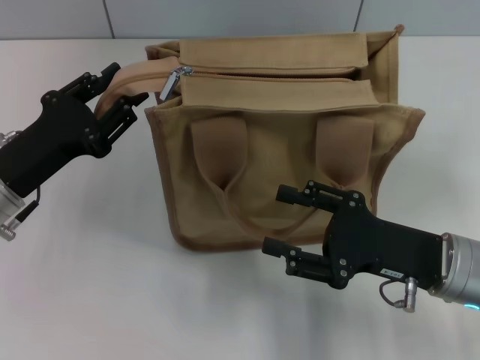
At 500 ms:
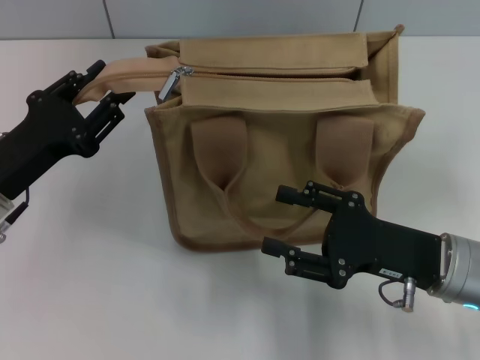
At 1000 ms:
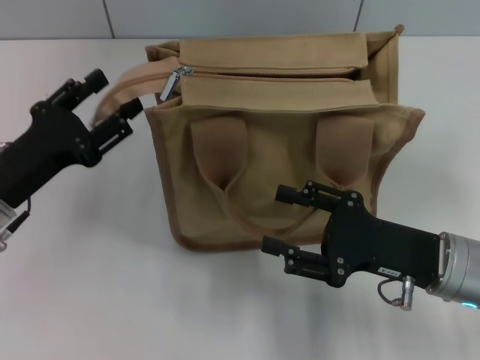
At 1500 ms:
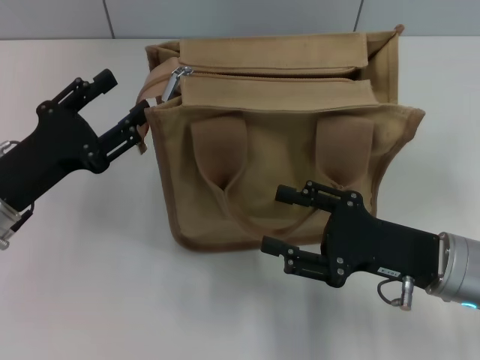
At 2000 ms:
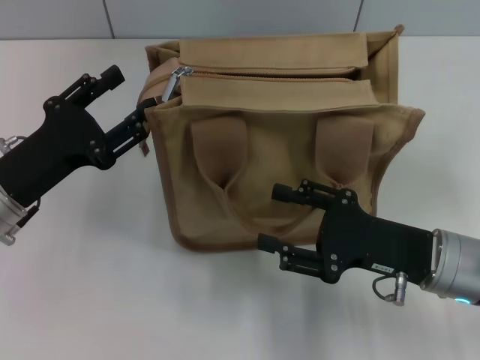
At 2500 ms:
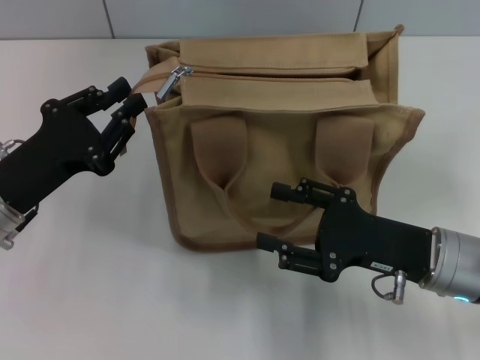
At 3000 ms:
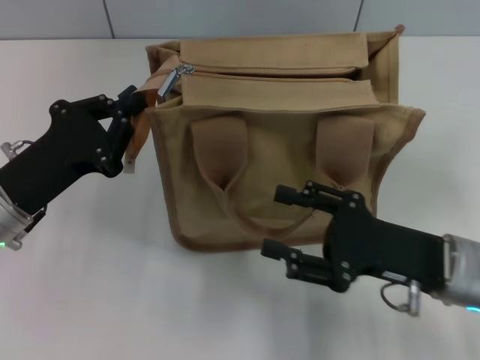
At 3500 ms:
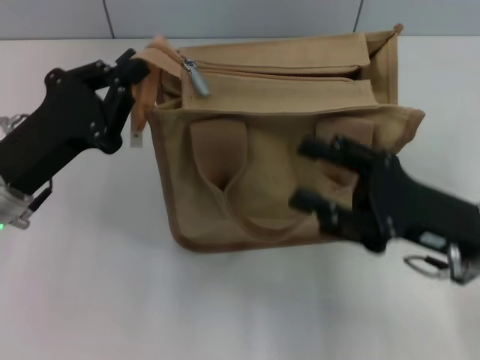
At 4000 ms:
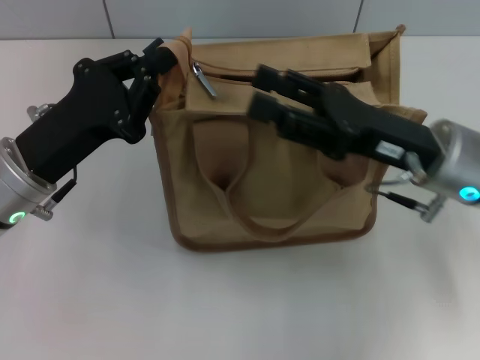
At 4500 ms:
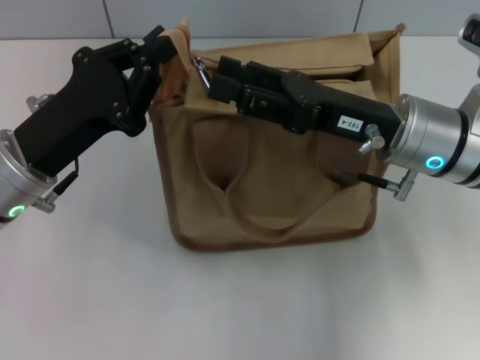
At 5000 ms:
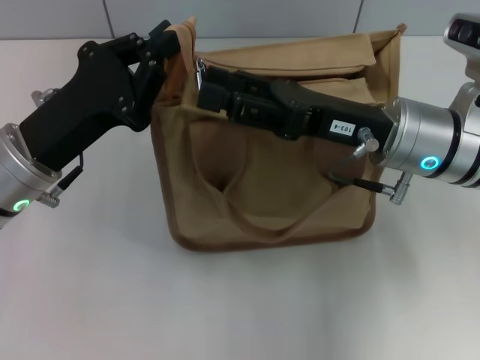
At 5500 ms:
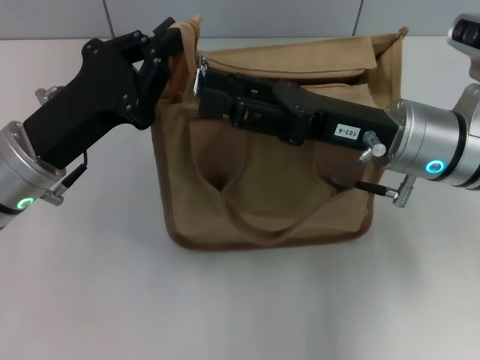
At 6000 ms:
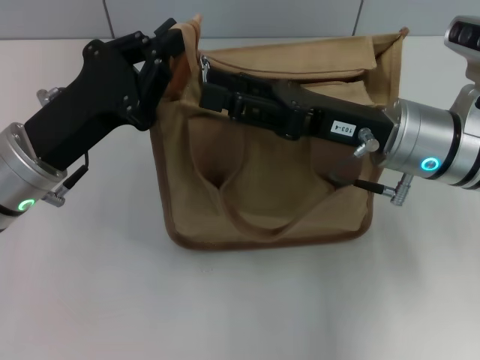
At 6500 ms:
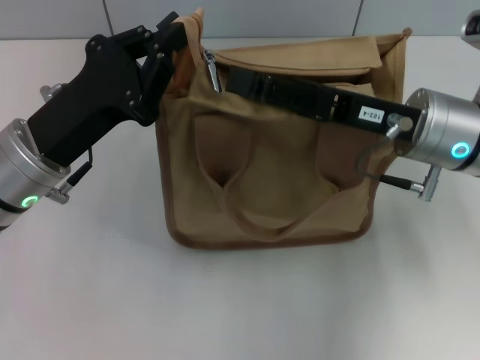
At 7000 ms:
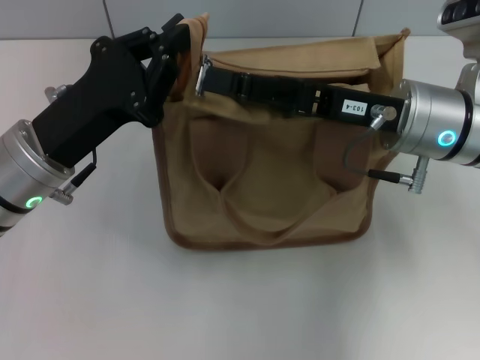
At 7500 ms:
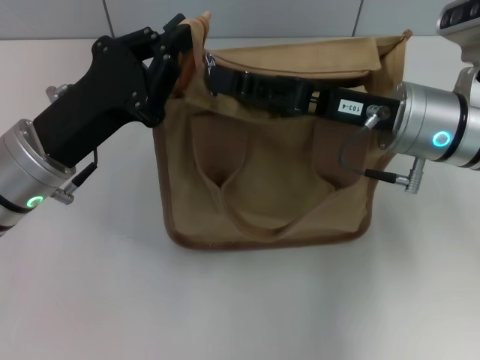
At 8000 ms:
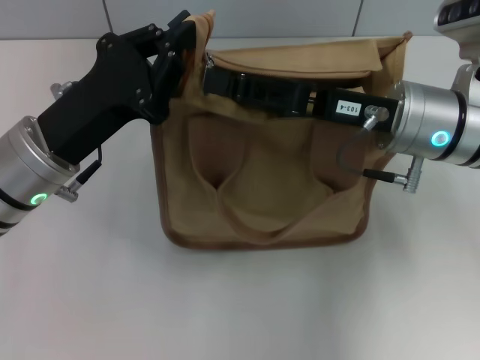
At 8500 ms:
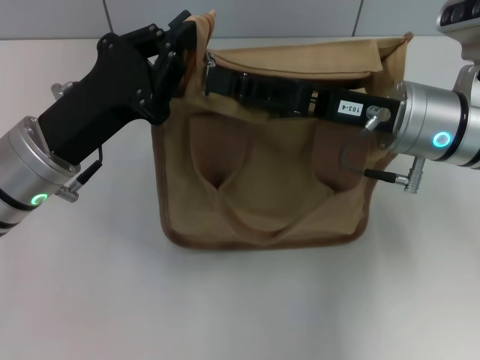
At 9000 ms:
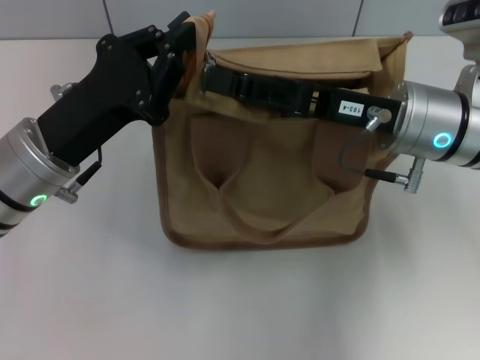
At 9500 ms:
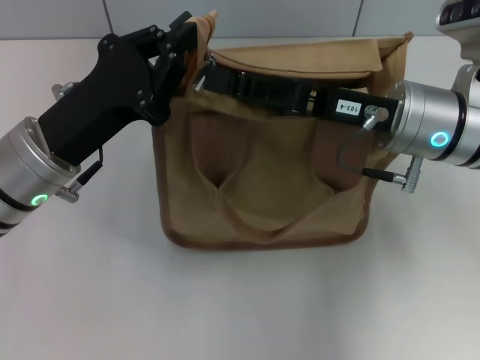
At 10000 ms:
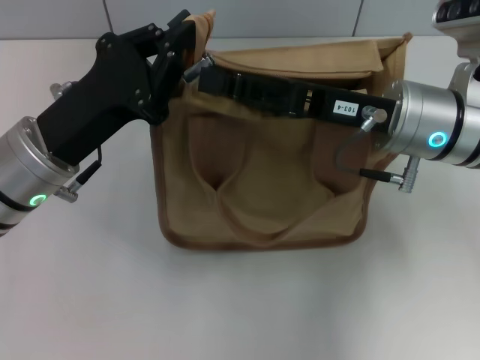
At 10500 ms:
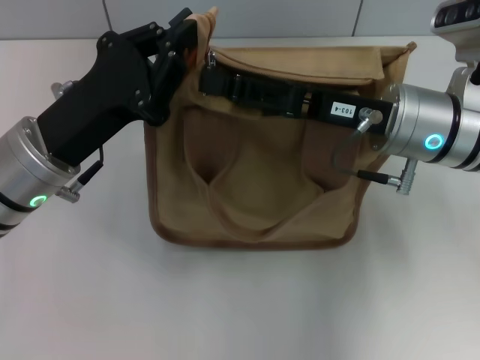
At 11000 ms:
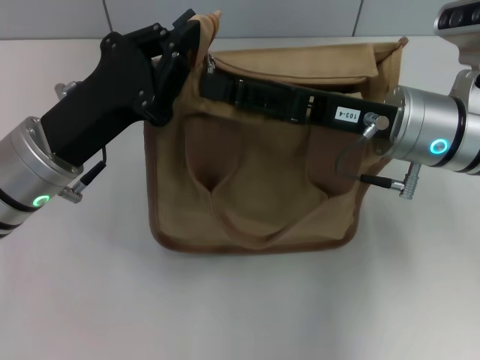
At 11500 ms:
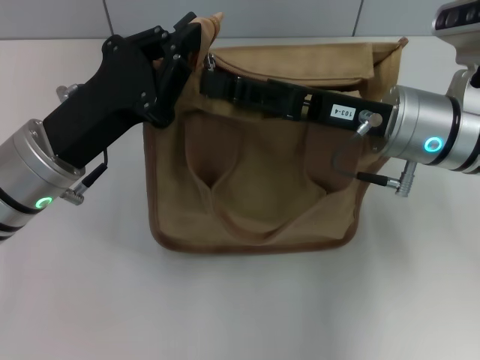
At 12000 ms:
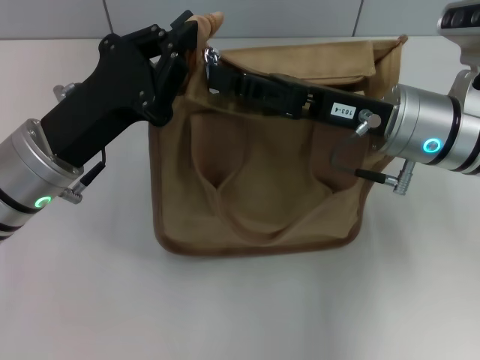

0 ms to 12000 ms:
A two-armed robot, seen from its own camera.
0 ms to 2000 ms: The left gripper opens.
2000 ms to 4000 ms: The left gripper closes its fingers; the right gripper moves upward and forward, roughly 10 cm.
4000 ms to 6000 ms: The grippers make only small movements.
6000 ms to 8000 ms: The right gripper closes its fingers.
8000 ms to 10000 ms: Both grippers stay put.
10000 ms to 12000 ms: The right gripper closes.

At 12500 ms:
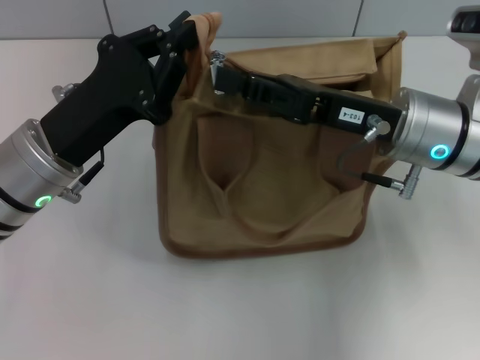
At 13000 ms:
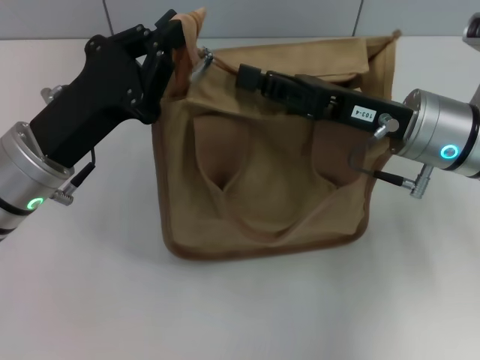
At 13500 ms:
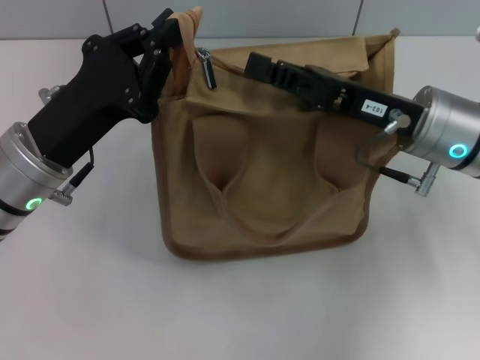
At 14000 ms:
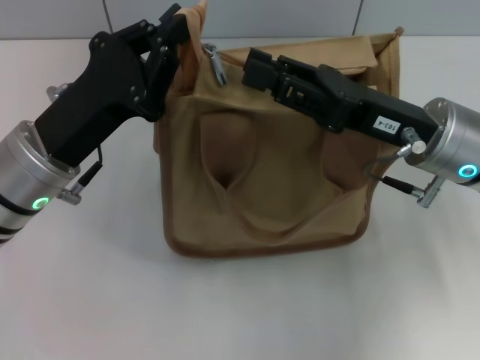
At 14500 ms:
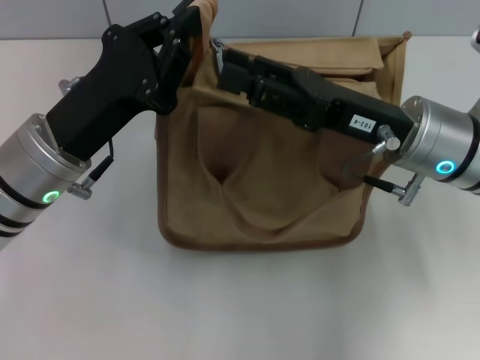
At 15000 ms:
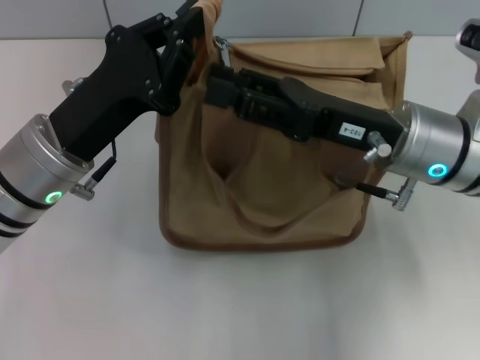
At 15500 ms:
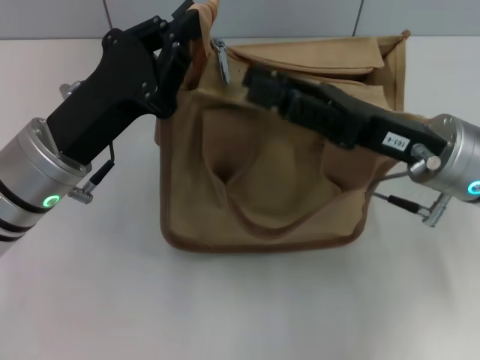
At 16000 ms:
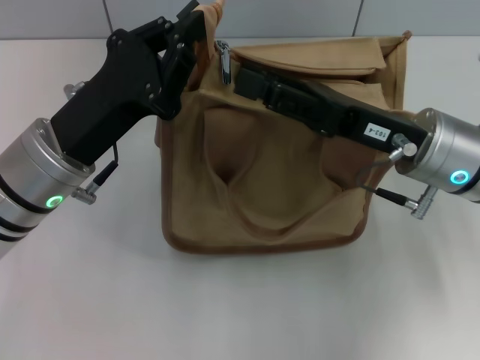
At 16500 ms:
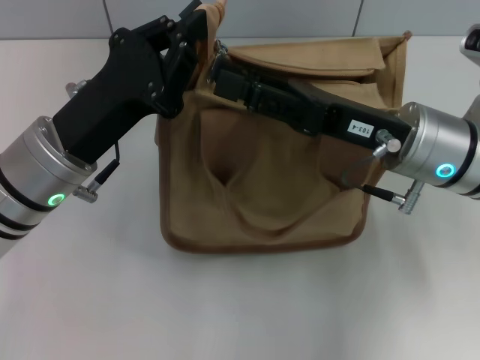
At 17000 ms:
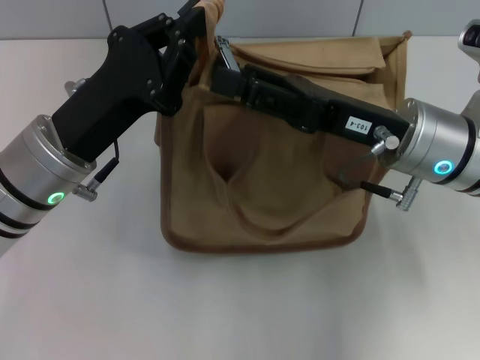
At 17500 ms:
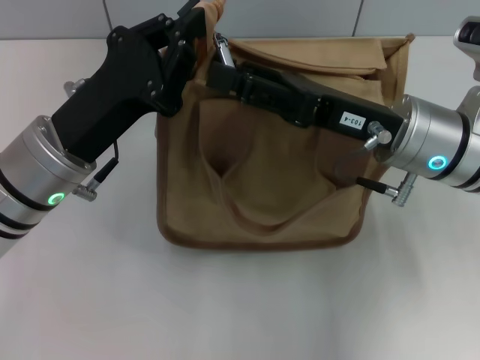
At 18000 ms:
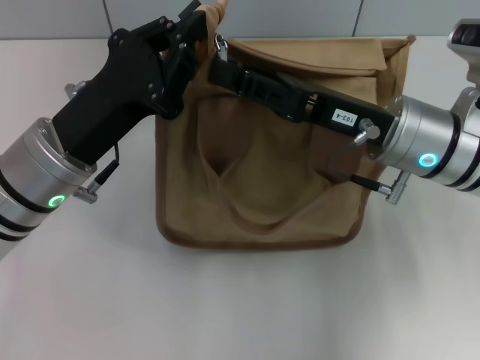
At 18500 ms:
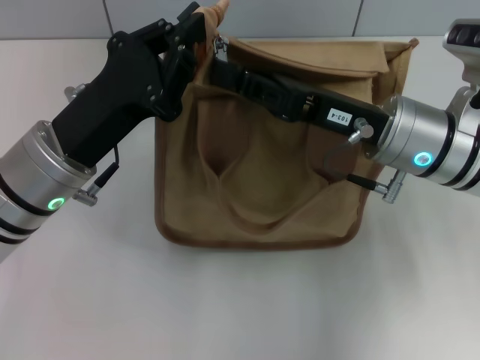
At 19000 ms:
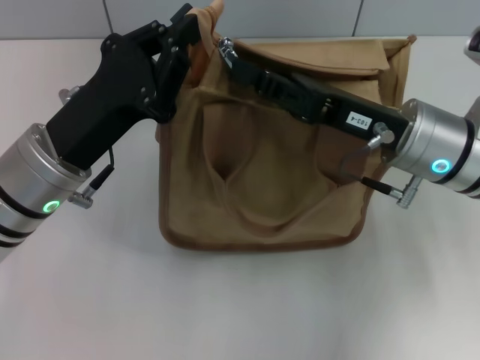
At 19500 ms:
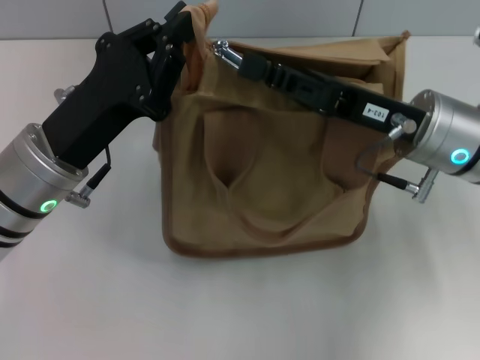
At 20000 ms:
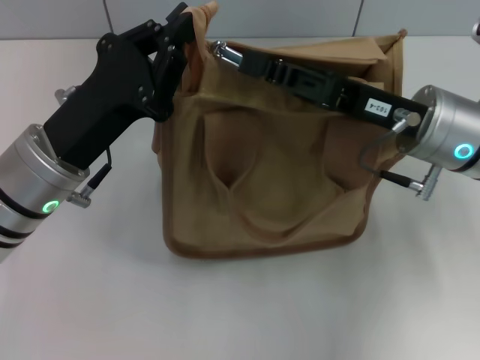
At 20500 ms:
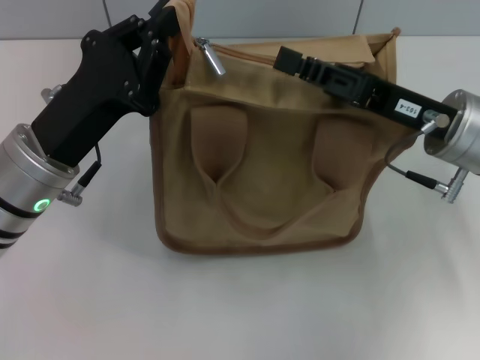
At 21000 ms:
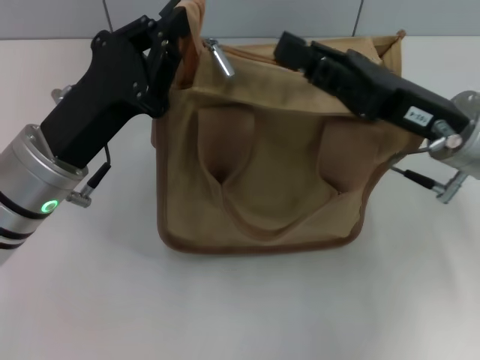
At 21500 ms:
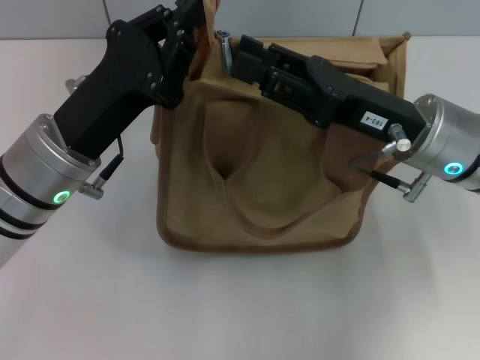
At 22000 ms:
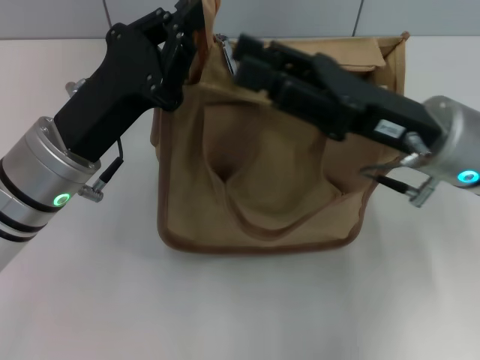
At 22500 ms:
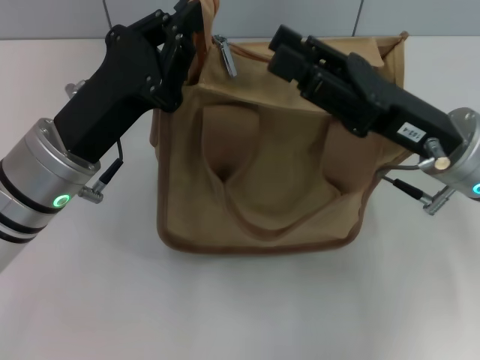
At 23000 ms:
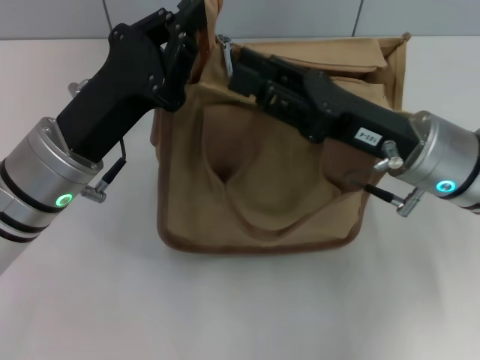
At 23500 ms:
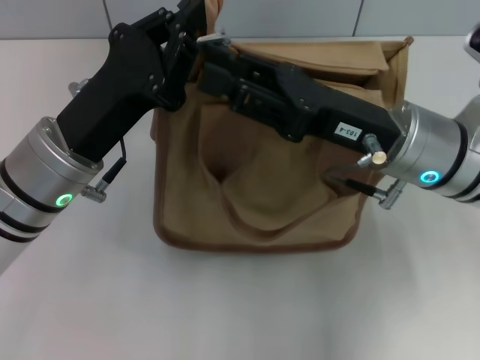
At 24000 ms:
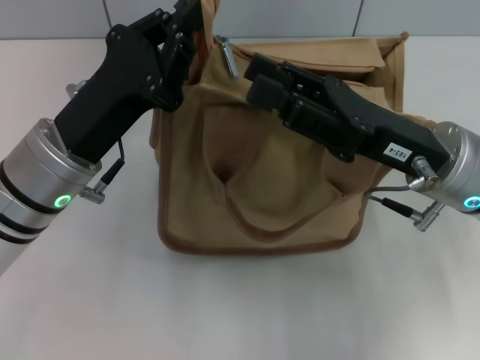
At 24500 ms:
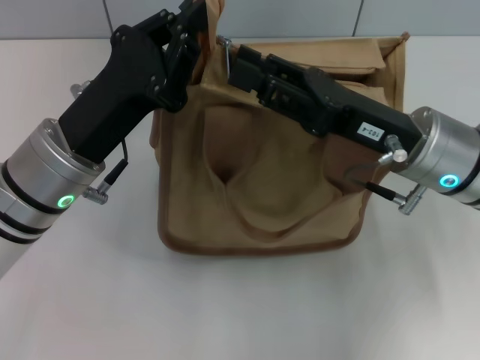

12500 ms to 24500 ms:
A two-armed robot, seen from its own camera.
12500 ms to 14500 ms: The right gripper opens.
14500 ms to 16500 ms: The grippers make only small movements.
16500 ms to 18500 ms: The right gripper closes its fingers.
20500 ms to 22500 ms: The right gripper opens up.
22500 ms to 24500 ms: The grippers make only small movements.

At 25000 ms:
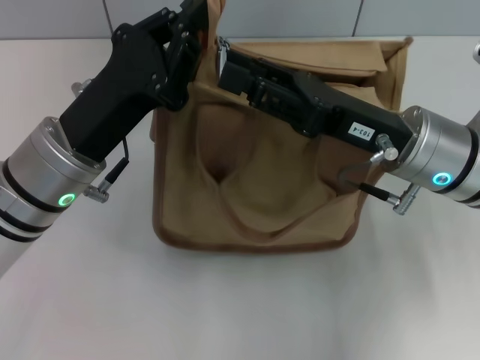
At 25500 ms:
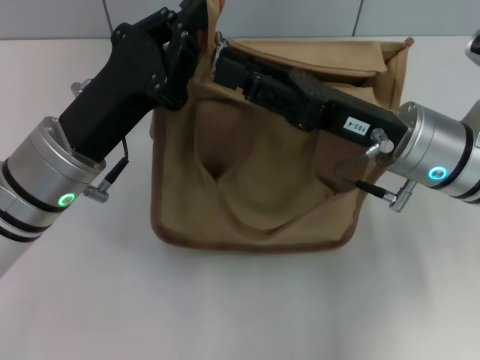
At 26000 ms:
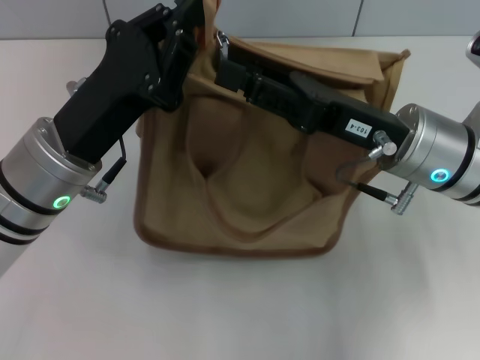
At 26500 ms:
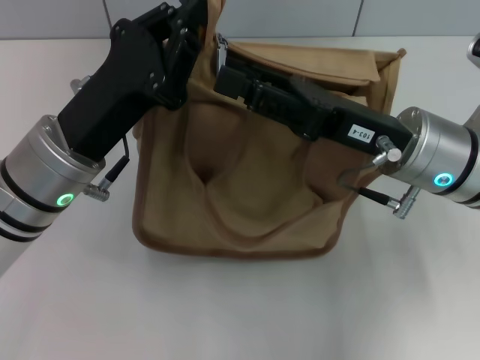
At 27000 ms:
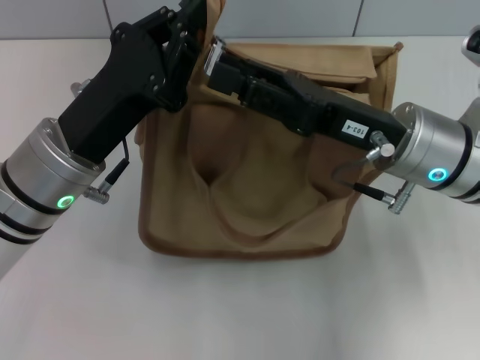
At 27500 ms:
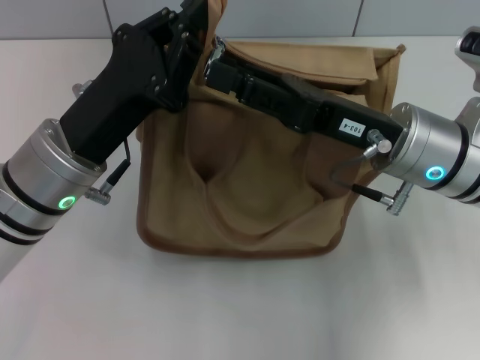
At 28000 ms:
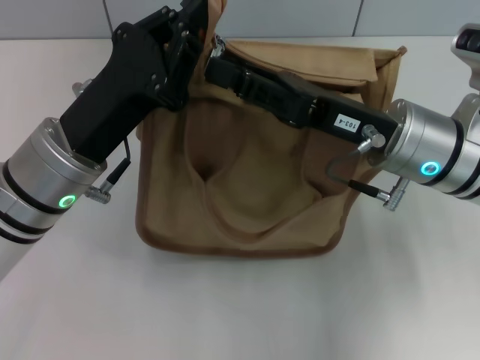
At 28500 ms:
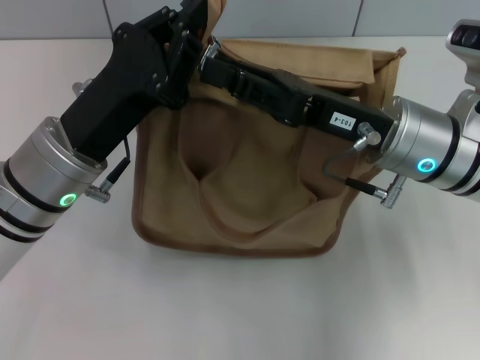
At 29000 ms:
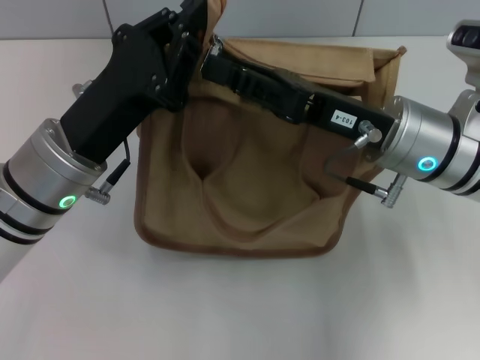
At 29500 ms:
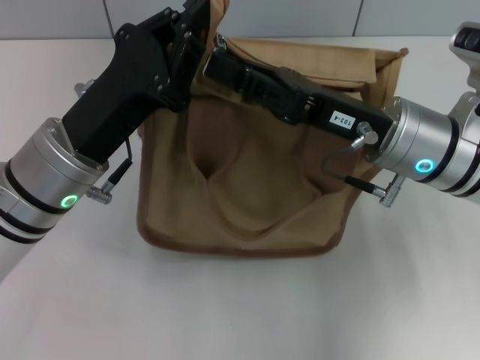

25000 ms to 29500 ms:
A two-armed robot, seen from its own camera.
25000 ms to 27000 ms: The two grippers keep their place.
27000 ms to 29500 ms: The right gripper closes its fingers.
